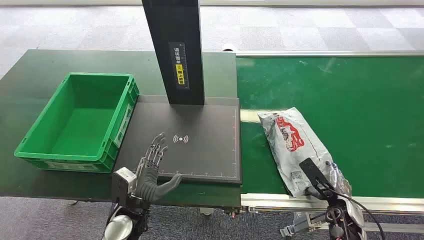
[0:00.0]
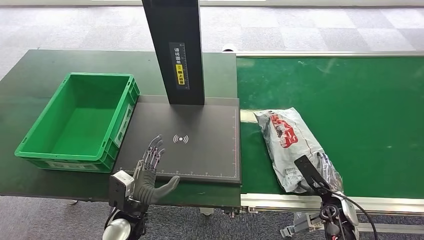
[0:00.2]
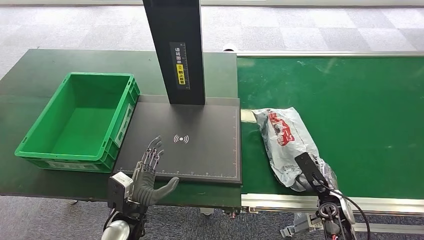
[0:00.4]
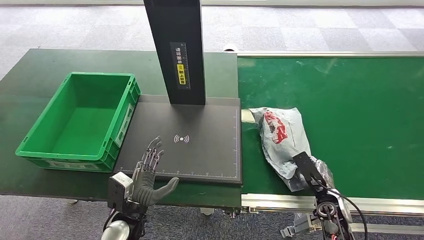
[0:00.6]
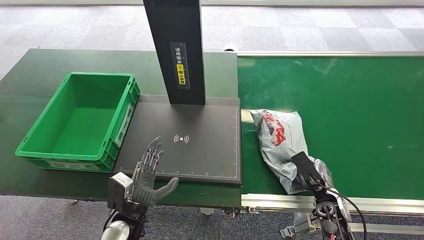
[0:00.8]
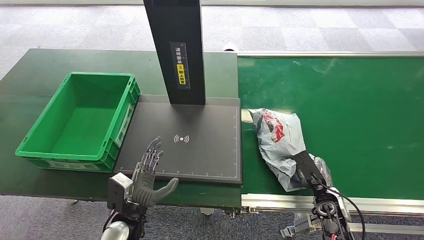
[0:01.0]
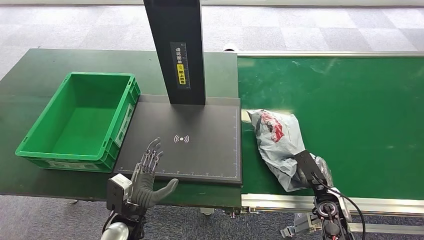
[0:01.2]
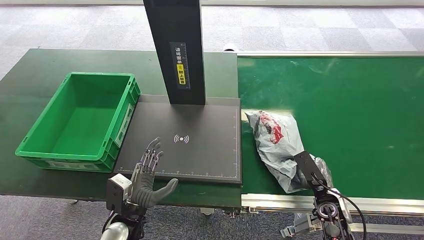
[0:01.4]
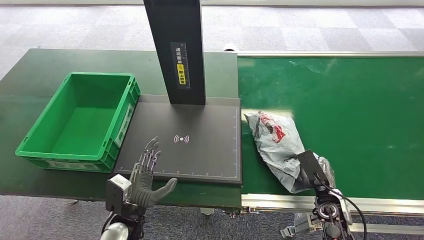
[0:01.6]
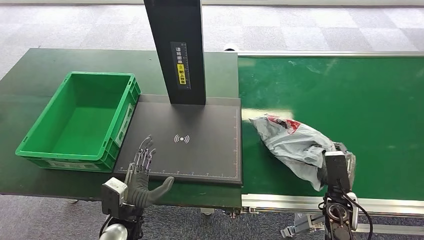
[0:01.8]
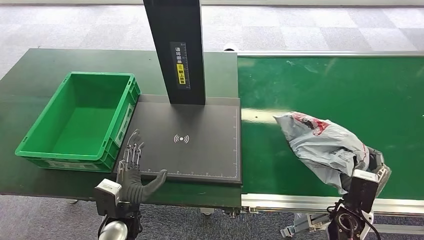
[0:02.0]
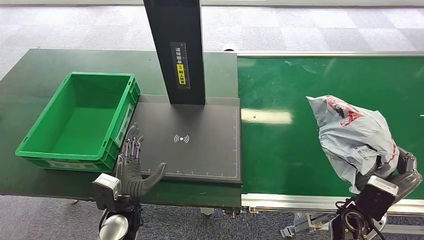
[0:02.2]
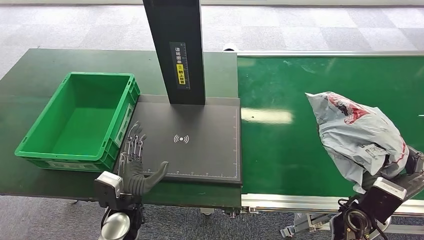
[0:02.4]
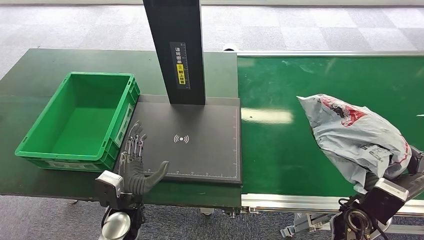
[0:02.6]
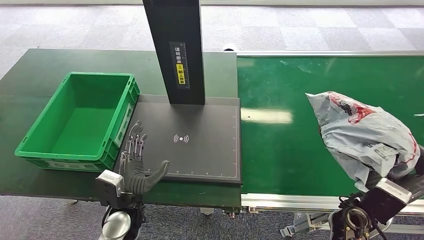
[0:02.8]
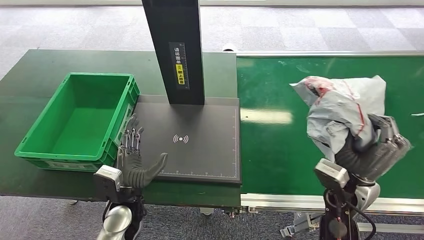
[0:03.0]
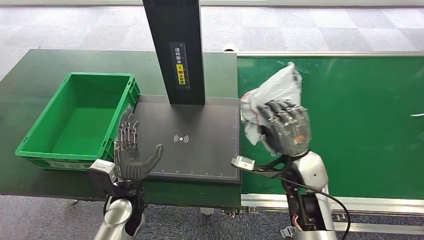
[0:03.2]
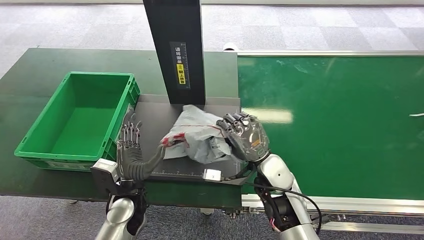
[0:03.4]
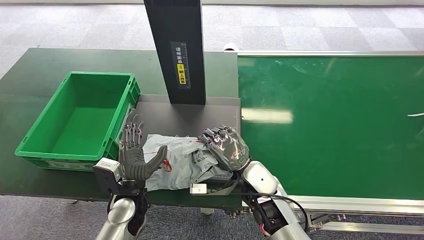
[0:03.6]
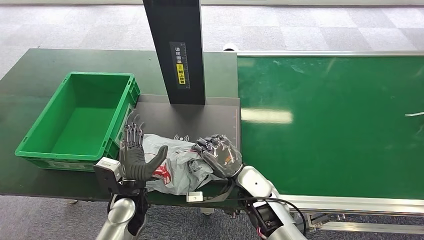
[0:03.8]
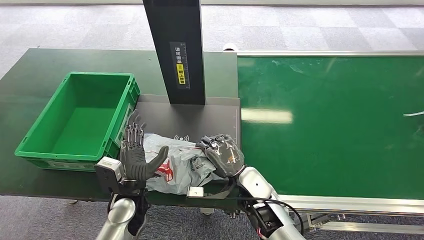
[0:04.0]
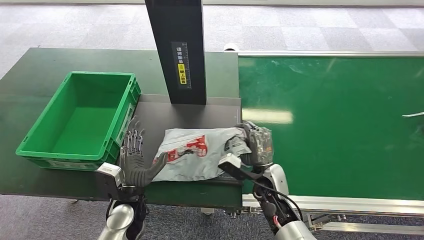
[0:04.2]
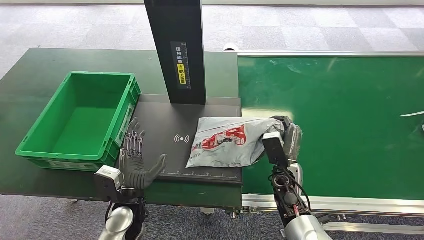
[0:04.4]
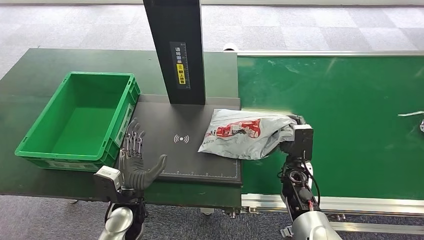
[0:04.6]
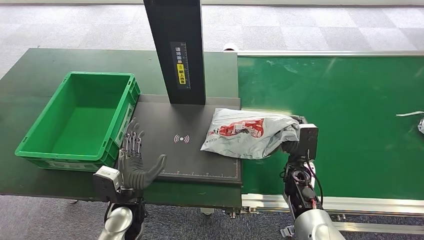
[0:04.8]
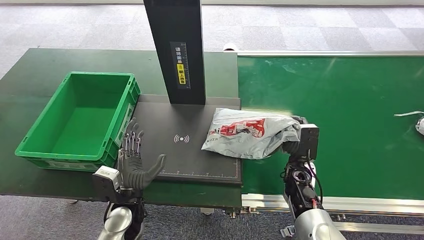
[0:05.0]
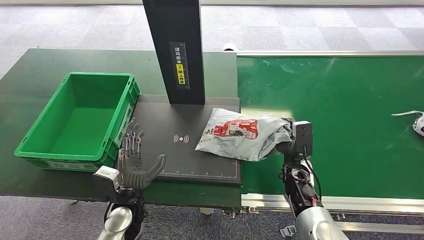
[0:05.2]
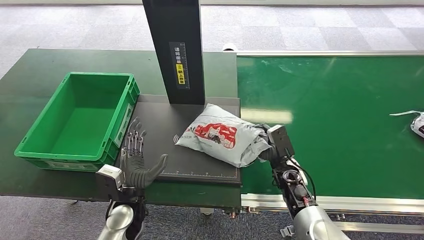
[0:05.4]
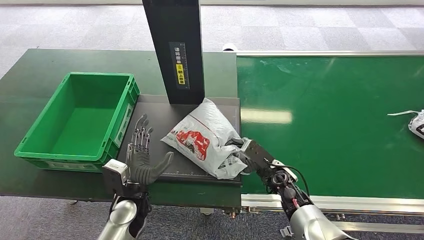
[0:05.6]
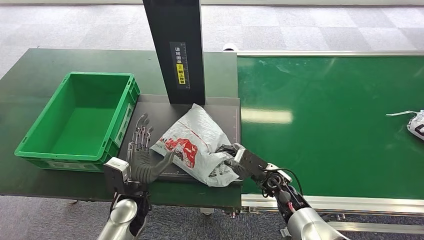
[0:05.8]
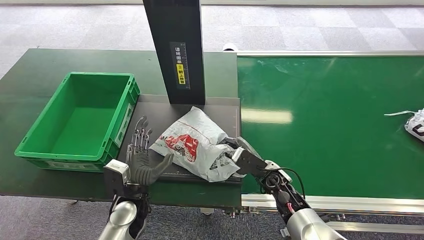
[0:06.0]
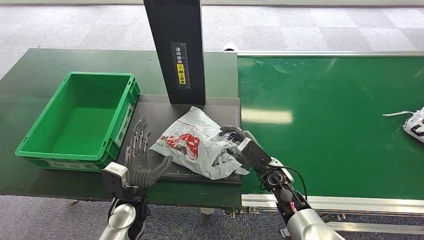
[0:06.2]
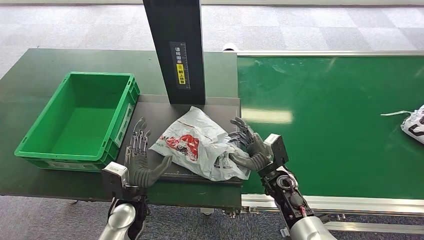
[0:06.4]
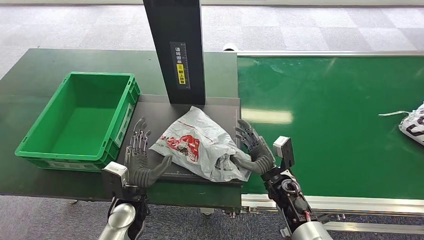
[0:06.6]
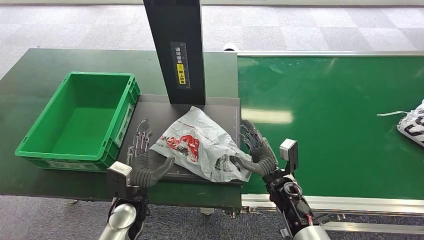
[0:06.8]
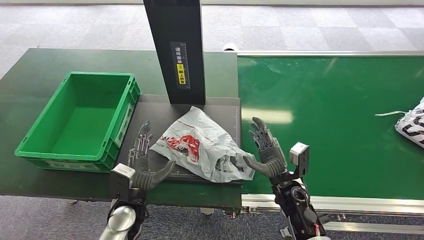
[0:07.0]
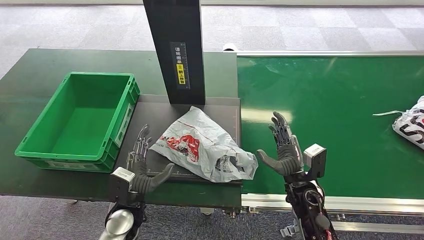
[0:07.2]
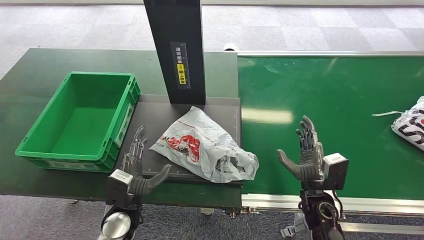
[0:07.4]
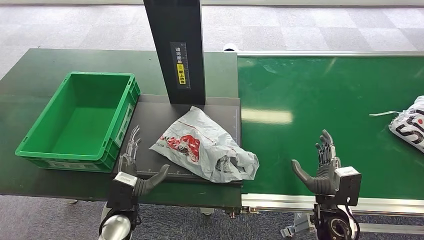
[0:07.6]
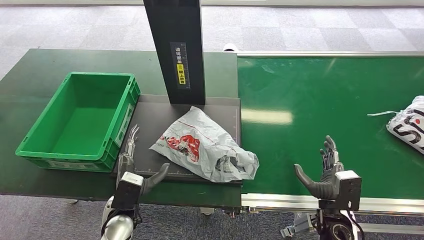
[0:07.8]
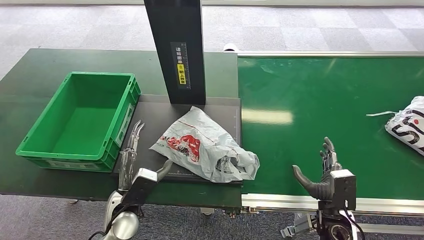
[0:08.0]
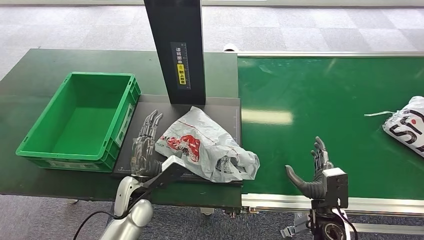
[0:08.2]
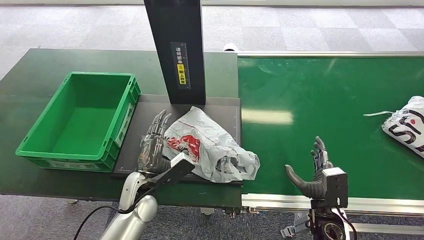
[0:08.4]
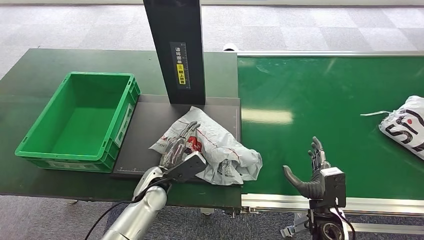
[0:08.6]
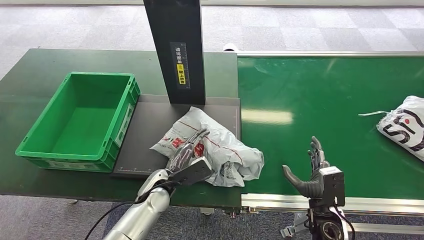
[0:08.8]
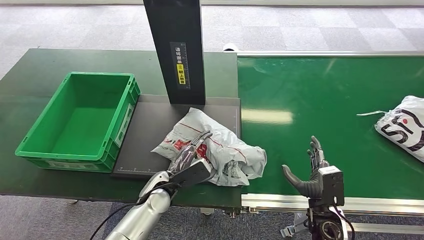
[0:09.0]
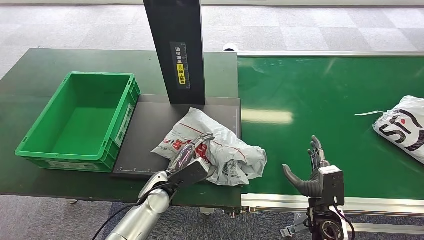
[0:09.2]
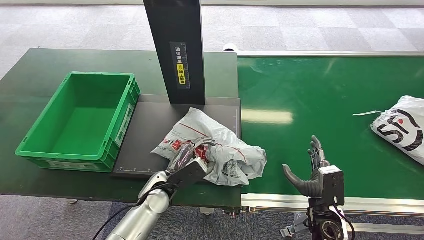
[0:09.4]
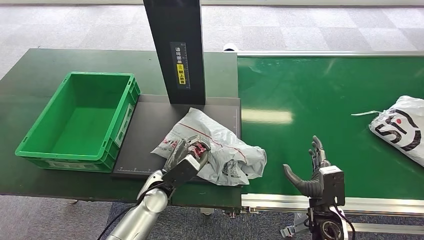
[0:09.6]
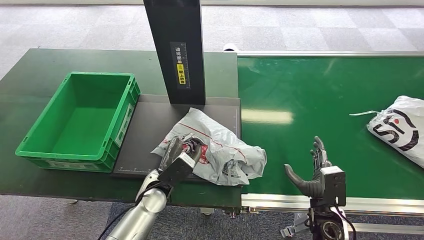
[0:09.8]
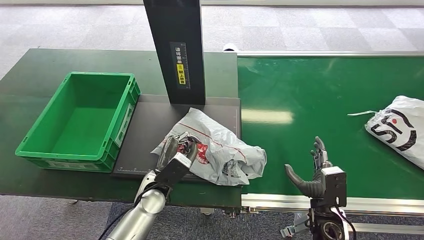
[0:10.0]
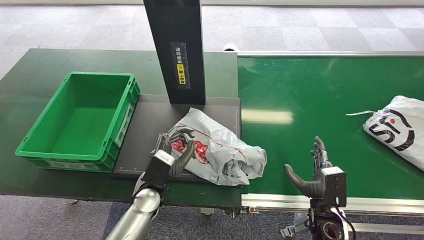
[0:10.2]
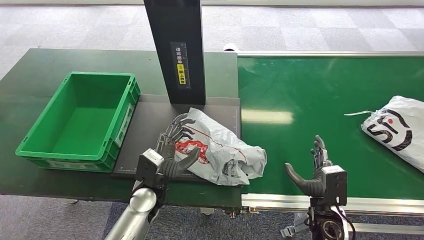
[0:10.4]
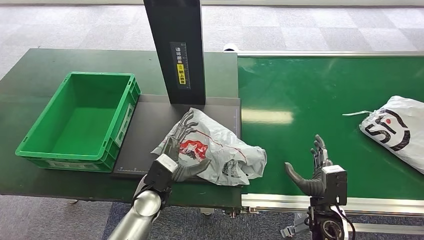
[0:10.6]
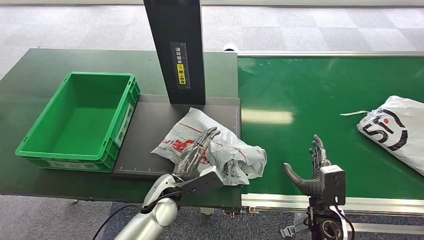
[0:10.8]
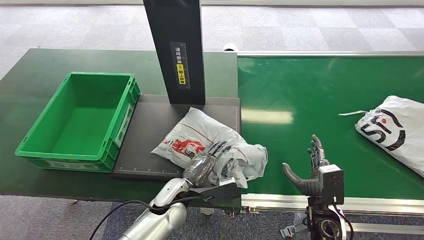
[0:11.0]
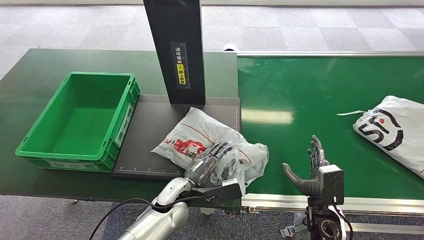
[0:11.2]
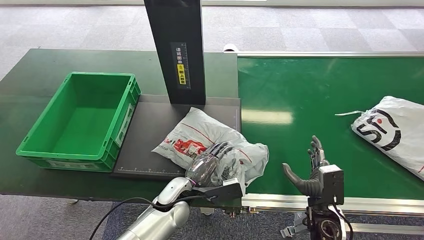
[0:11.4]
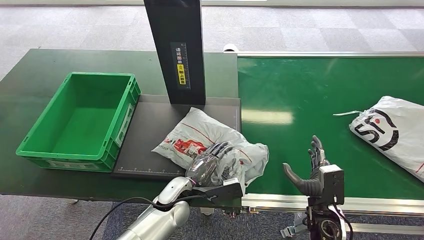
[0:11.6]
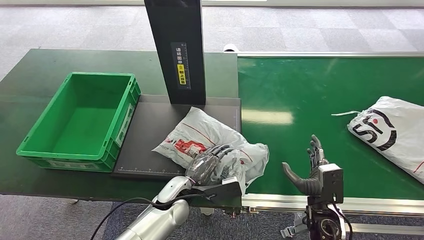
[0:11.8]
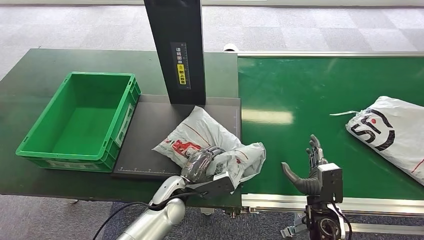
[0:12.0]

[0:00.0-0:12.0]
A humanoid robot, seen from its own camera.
Step, 0:00.0 to 0:02.2: Pick up the package from the conveyor belt.
Step, 0:02.4 to 0:07.0: Place the package onto the inbound machine.
0:01.6 to 0:03.0: The right hand is displaced upward by approximately 15 cm.
0:06.0 to 0:07.6: The right hand travels backward and to the right by about 15 cm.
0:07.6 to 0:09.0: The left hand shifts roughly 10 cm to the right and forward.
0:10.4 to 0:12.0: The left hand changes place by approximately 5 cm.

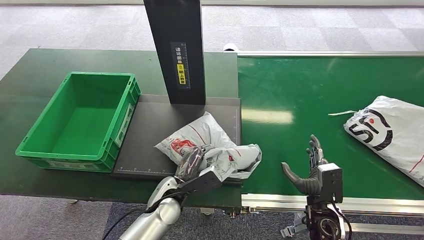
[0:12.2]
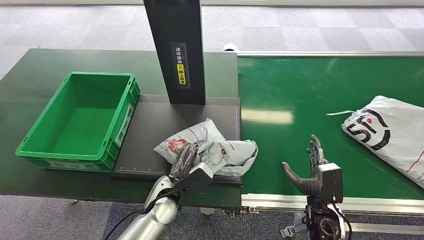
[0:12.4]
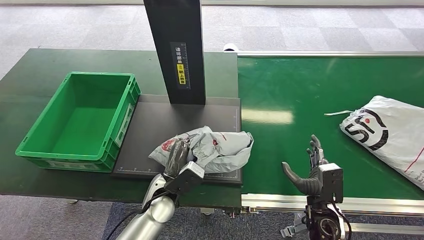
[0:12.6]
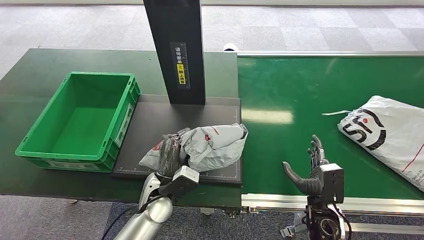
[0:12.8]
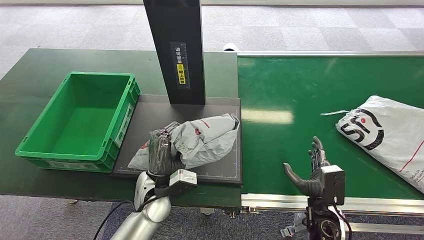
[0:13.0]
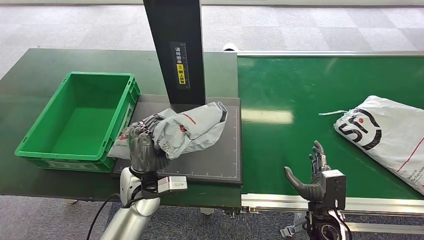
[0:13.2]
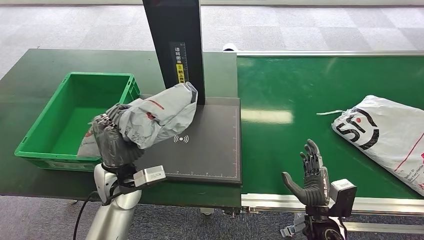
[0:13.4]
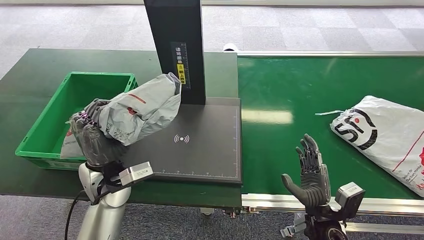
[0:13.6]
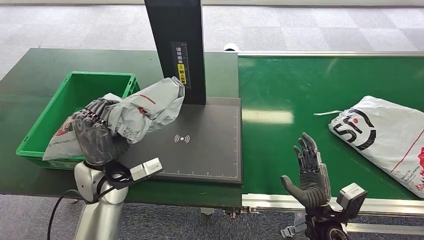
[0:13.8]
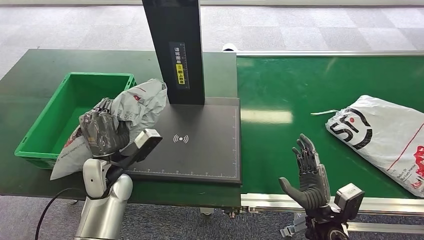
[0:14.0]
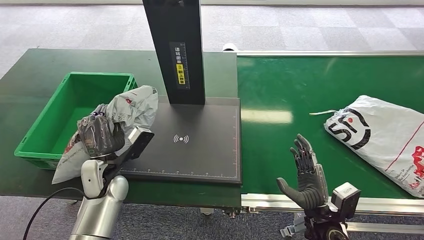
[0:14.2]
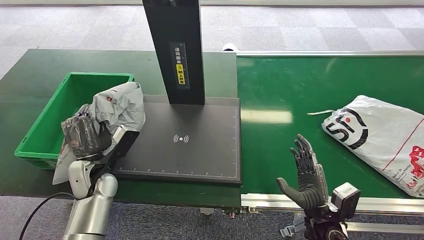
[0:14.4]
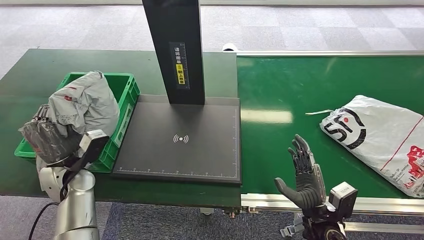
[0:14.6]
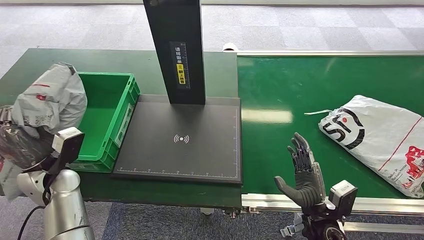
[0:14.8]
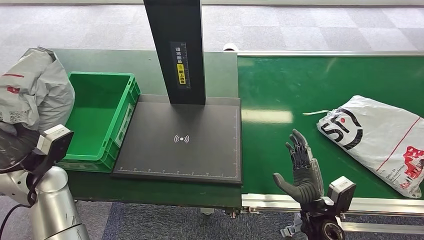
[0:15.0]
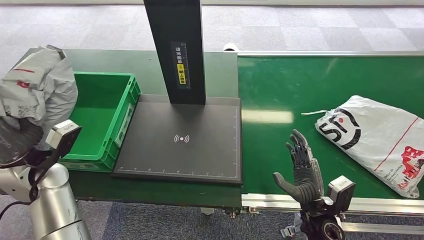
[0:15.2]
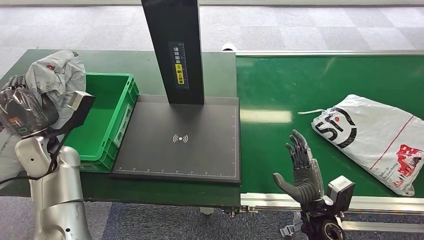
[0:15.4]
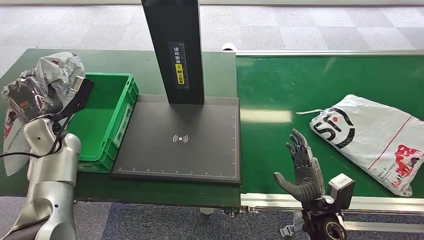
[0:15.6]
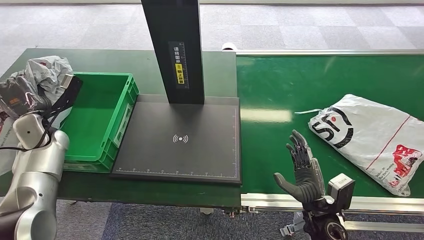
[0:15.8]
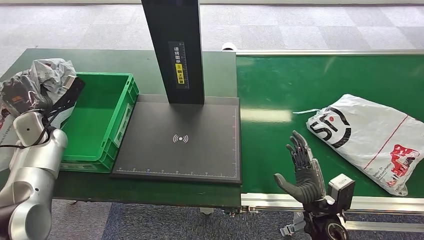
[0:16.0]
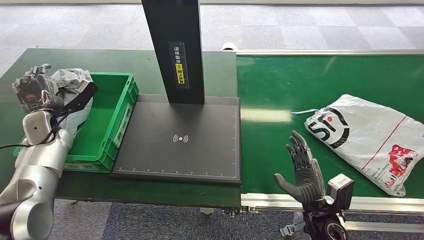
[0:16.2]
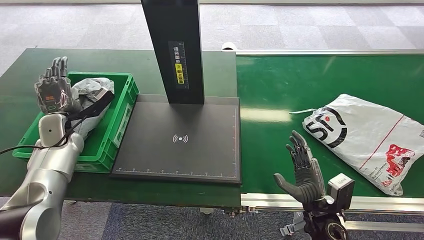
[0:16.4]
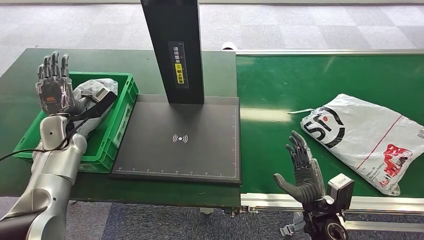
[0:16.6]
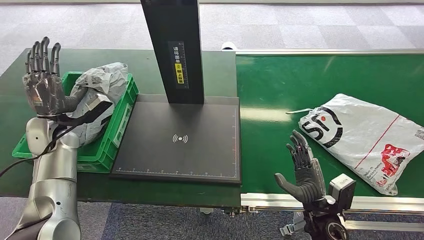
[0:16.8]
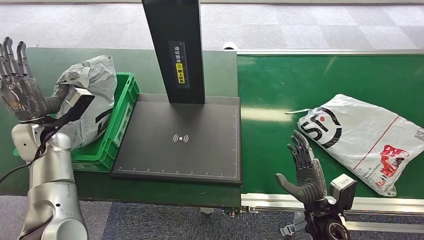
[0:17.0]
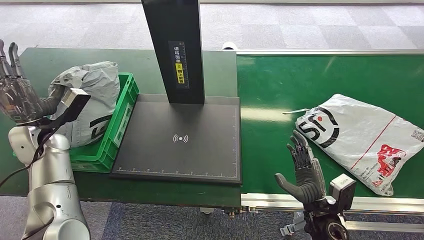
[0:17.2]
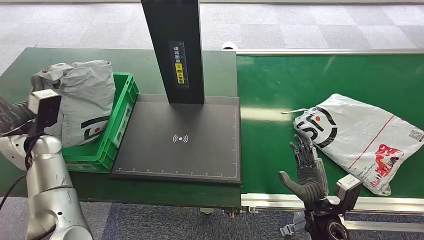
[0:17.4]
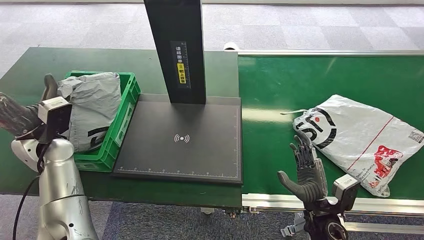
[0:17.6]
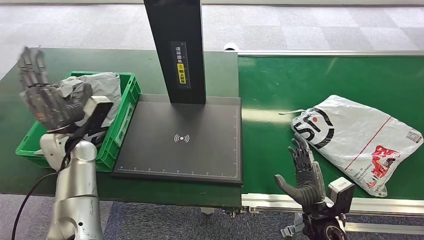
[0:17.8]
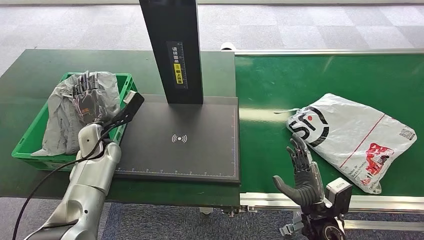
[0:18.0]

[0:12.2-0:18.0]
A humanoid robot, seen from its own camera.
Step, 0:13.6 to 0:18.0: Place the package into the parcel locker.
